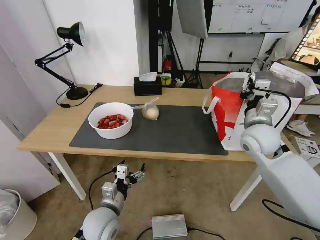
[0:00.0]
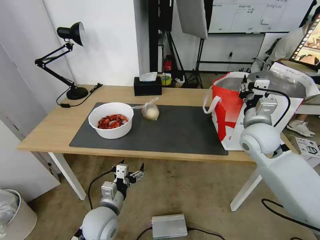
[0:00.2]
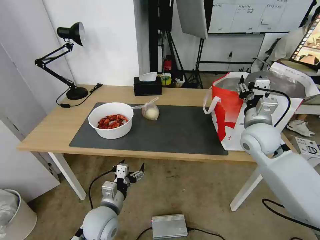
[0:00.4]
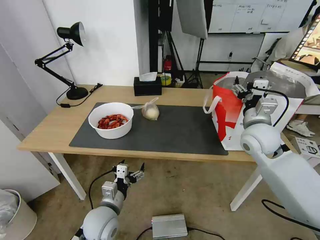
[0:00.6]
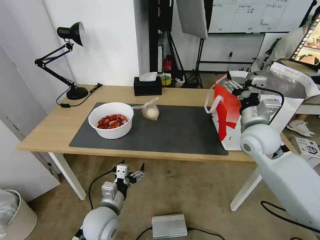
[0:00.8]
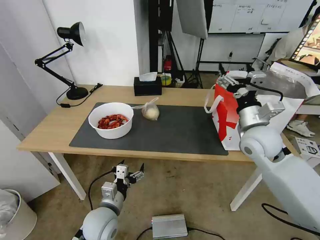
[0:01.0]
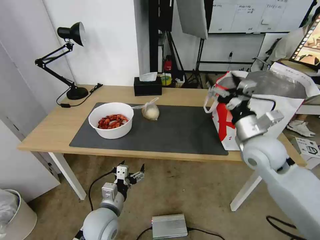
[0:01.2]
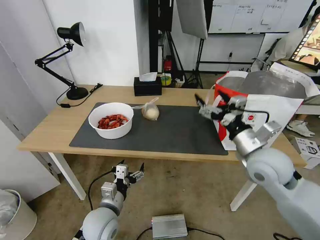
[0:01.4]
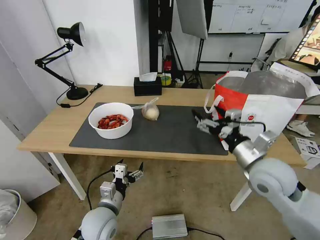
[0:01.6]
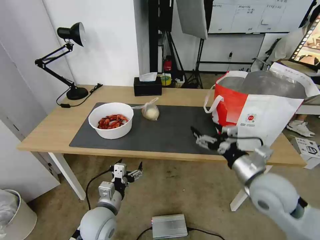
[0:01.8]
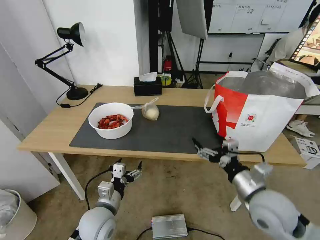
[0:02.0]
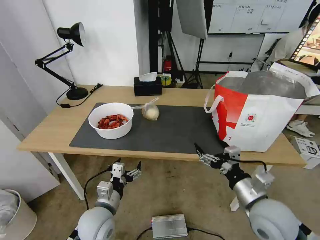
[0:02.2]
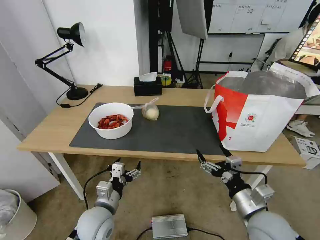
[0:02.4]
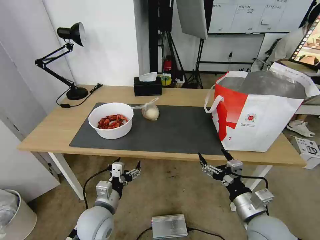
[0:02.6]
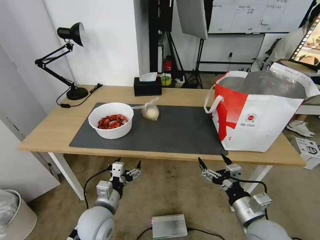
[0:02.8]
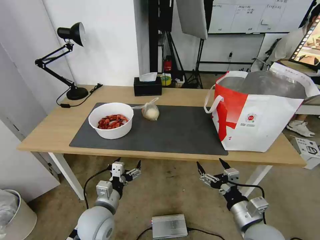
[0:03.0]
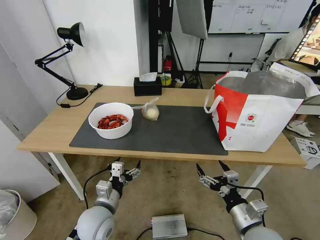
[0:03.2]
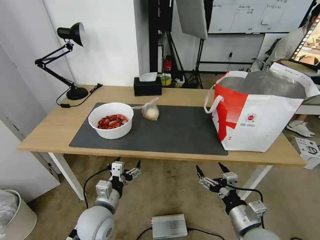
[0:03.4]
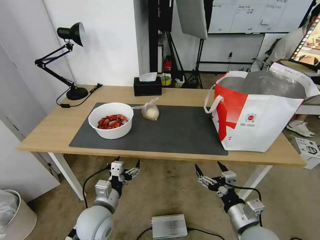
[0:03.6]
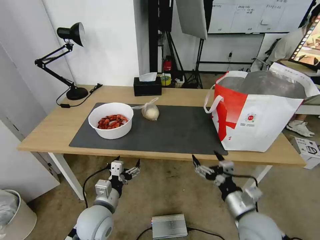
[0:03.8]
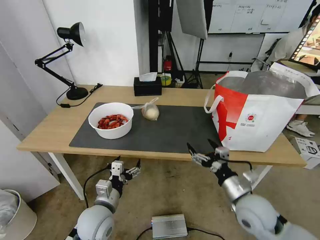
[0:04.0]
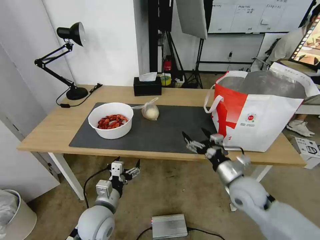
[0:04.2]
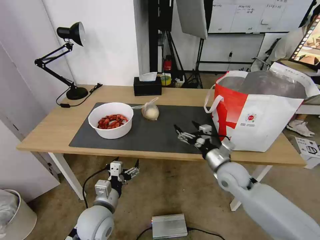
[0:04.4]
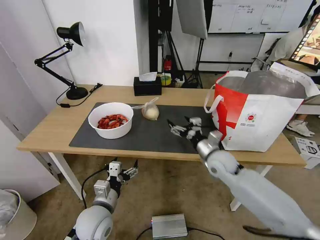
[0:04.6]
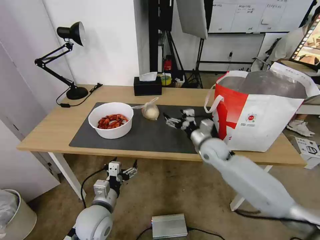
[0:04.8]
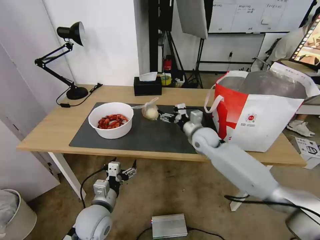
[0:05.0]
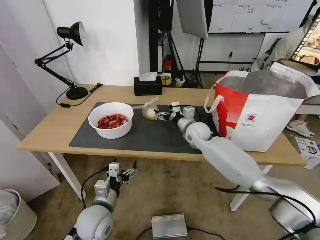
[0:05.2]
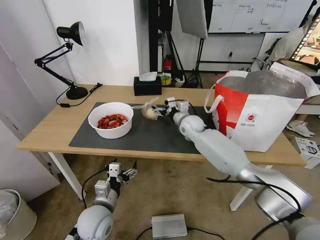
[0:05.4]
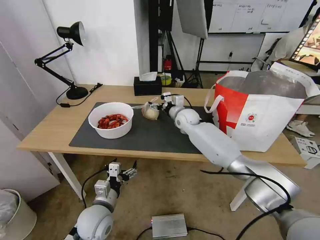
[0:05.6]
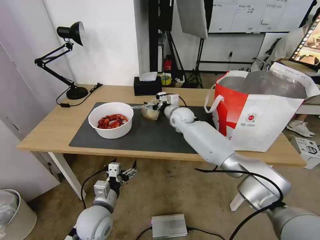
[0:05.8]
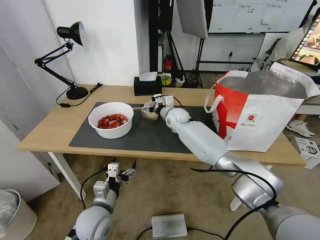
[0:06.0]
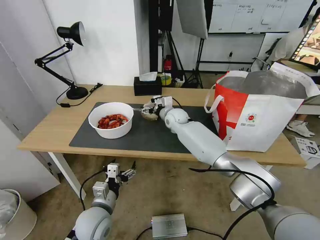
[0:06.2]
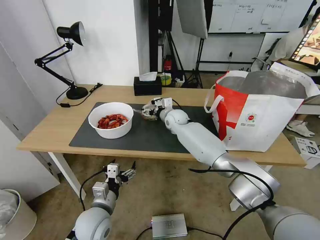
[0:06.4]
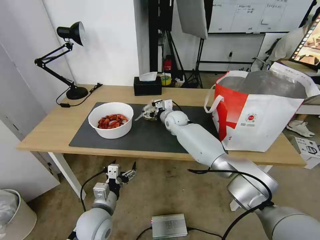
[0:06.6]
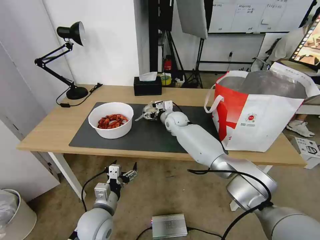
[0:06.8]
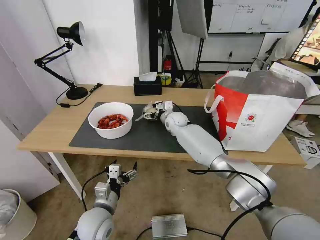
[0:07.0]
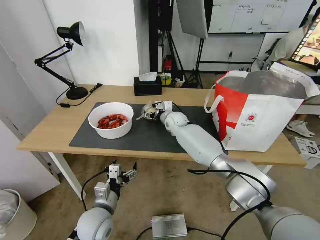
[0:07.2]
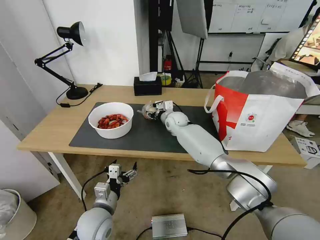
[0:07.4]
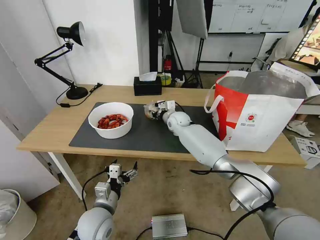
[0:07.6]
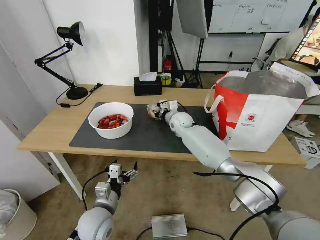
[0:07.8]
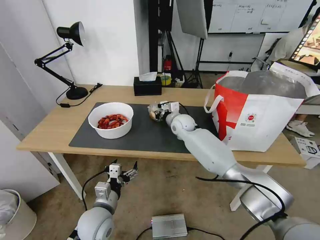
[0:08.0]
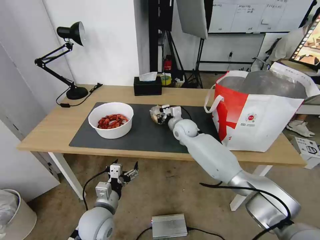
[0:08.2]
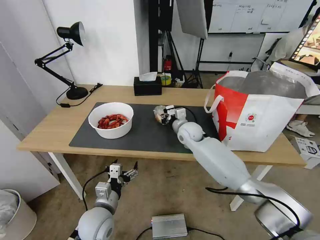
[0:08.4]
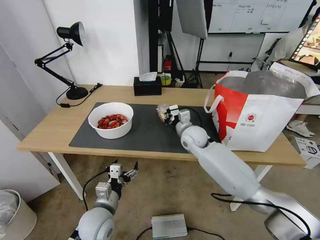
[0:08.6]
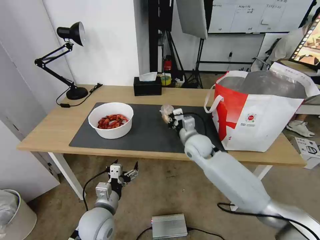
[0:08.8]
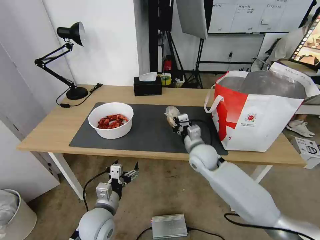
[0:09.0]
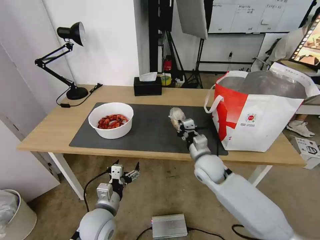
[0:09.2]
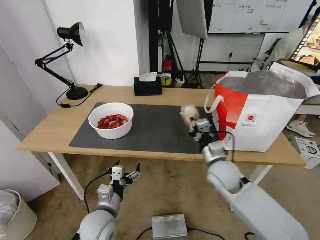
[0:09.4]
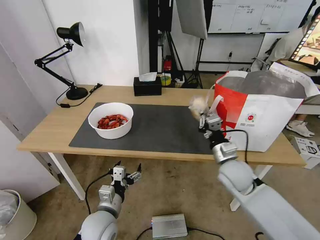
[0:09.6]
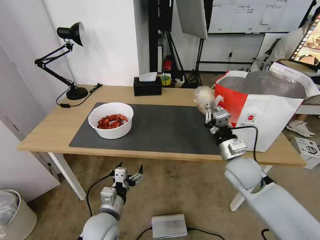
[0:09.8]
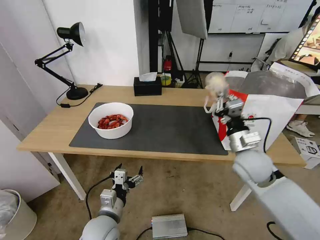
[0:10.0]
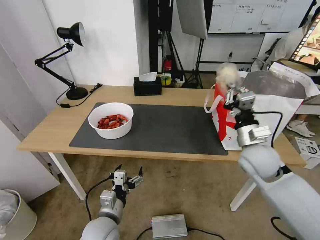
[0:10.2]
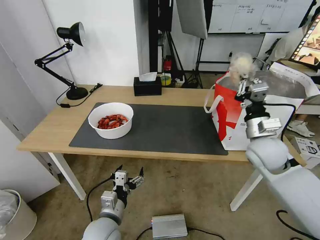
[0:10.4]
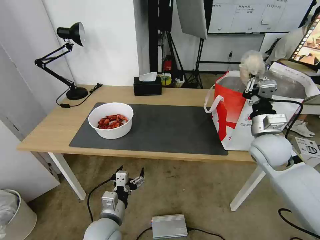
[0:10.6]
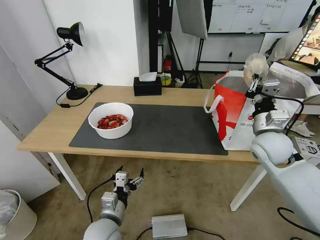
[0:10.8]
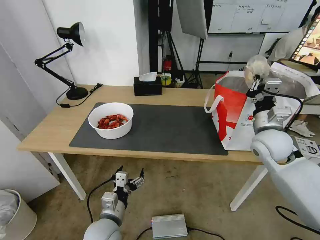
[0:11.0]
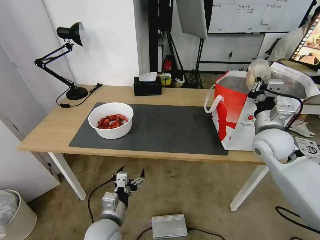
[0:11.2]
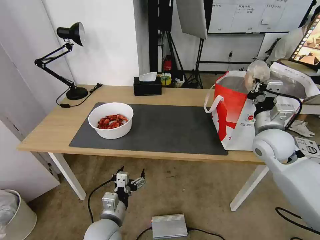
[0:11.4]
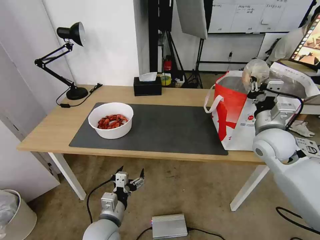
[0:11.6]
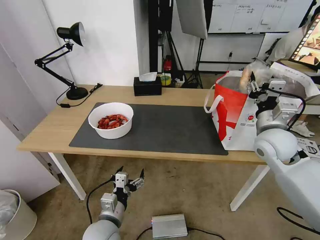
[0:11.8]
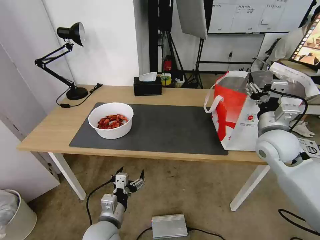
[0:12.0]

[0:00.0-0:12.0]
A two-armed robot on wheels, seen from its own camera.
Task of the whole recording: Pick up the trash from the table and place it into the takeout bag.
0:00.0 to 0:01.6: The right gripper moves backward, about 10 cm, and opens up.
0:01.6 to 0:03.0: The right gripper goes approximately 20 cm downward and backward.
0:03.0 to 0:04.4: The right gripper travels forward by about 20 cm.
0:04.4 to 0:06.0: The right gripper travels forward and to the left by about 30 cm.
0:06.0 to 0:07.6: The right gripper closes its fingers.
0:07.6 to 0:09.0: The right gripper shifts some 20 cm backward.
0:09.0 to 0:10.4: The right gripper moves to the right and upward, some 20 cm.
0:10.4 to 0:12.0: The right gripper opens up.

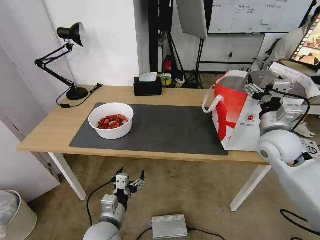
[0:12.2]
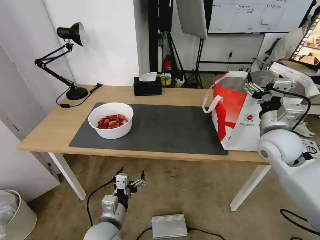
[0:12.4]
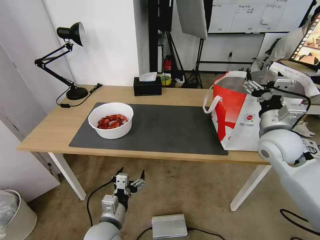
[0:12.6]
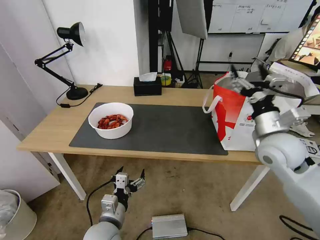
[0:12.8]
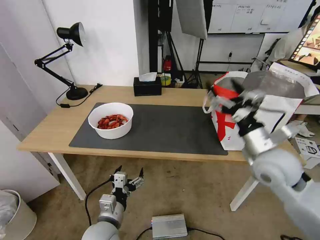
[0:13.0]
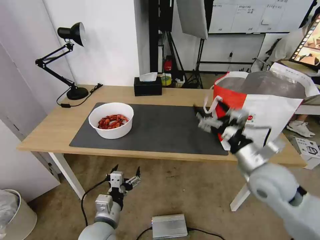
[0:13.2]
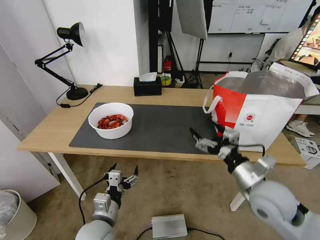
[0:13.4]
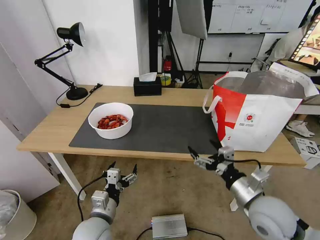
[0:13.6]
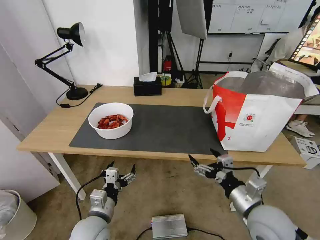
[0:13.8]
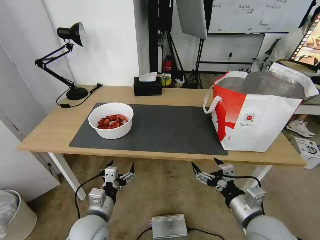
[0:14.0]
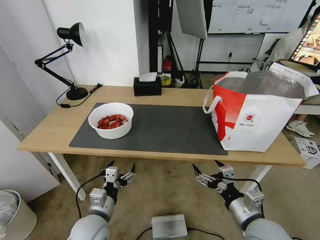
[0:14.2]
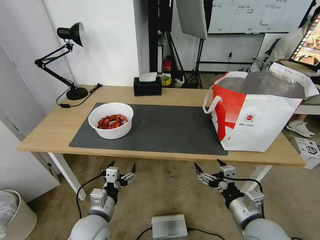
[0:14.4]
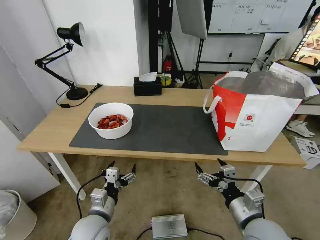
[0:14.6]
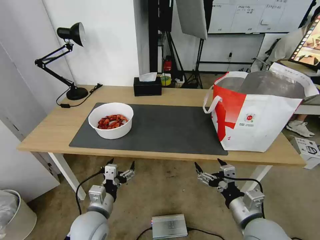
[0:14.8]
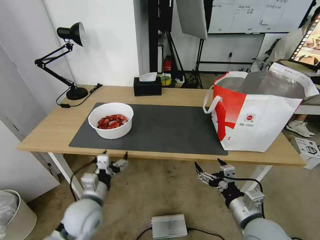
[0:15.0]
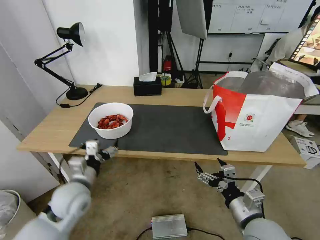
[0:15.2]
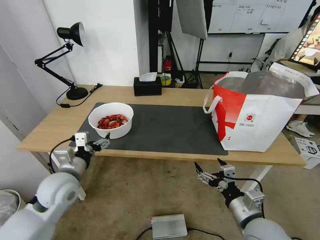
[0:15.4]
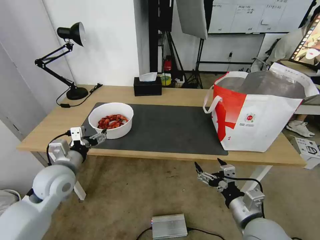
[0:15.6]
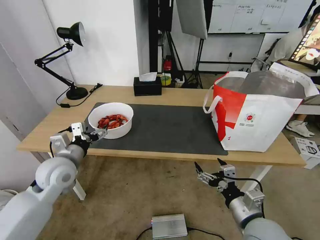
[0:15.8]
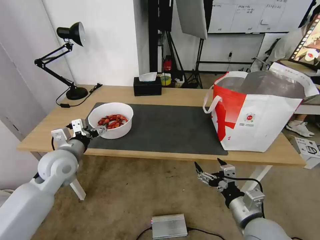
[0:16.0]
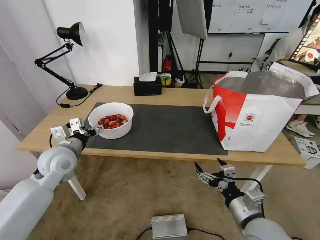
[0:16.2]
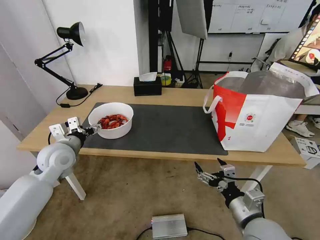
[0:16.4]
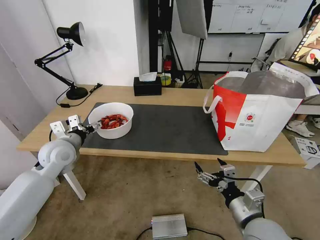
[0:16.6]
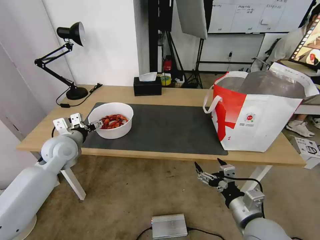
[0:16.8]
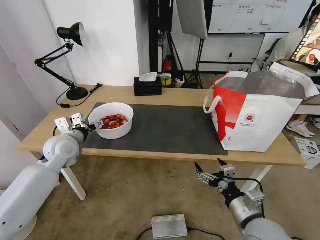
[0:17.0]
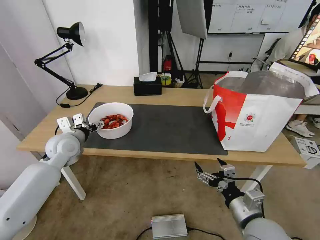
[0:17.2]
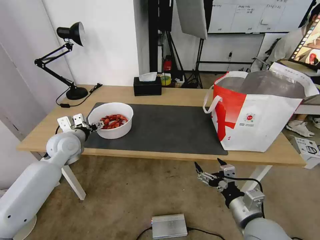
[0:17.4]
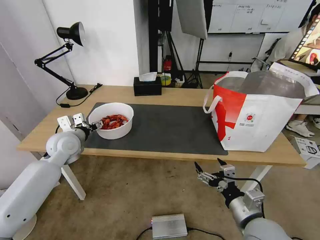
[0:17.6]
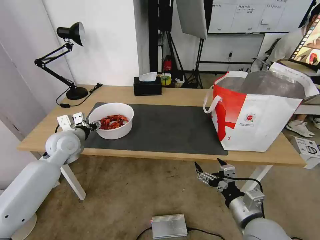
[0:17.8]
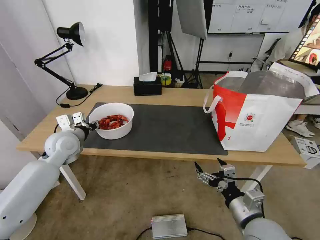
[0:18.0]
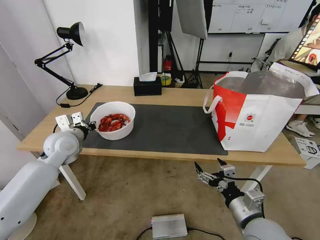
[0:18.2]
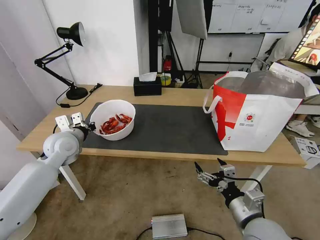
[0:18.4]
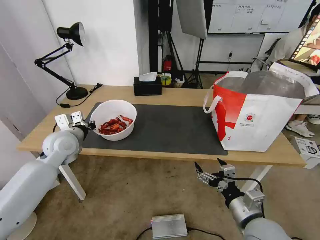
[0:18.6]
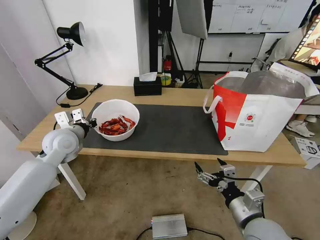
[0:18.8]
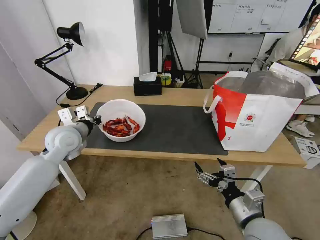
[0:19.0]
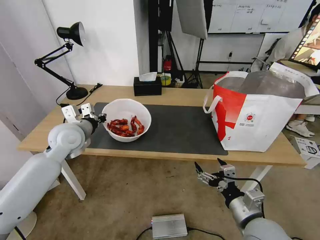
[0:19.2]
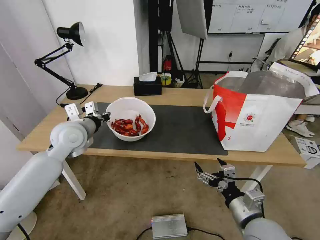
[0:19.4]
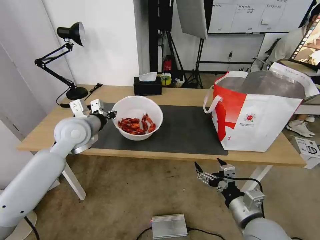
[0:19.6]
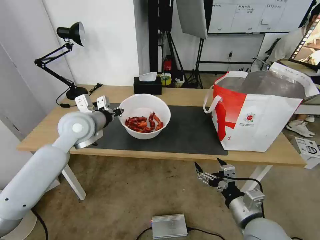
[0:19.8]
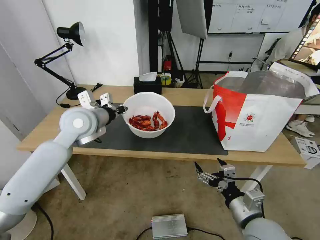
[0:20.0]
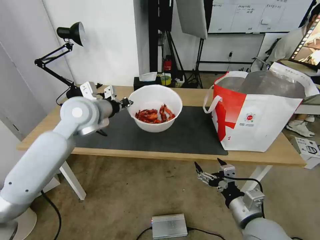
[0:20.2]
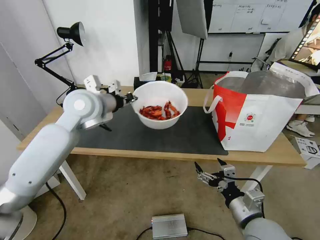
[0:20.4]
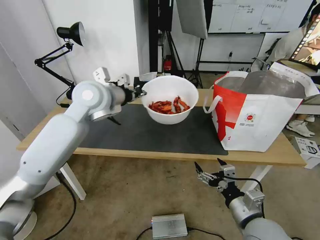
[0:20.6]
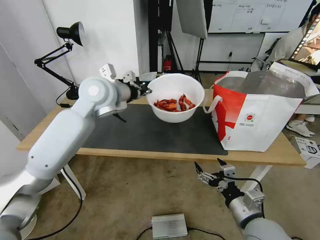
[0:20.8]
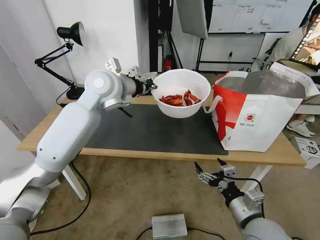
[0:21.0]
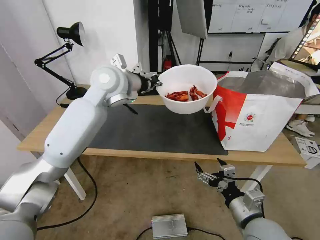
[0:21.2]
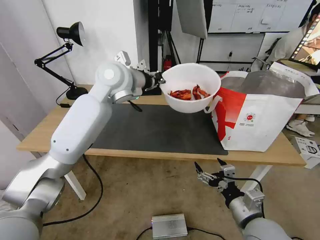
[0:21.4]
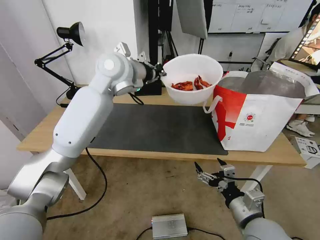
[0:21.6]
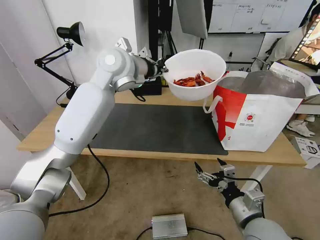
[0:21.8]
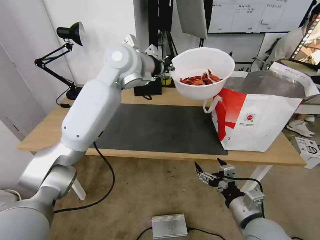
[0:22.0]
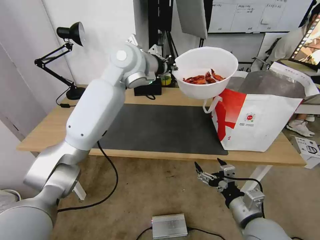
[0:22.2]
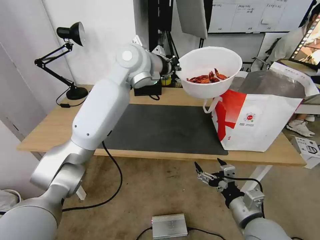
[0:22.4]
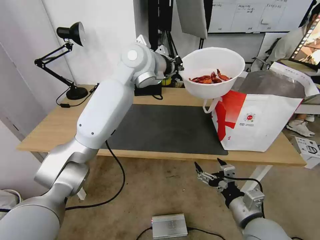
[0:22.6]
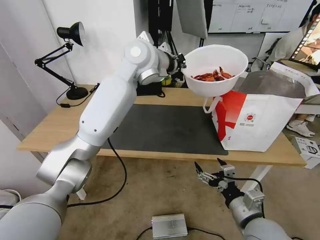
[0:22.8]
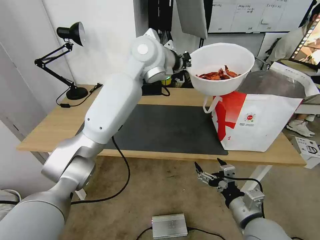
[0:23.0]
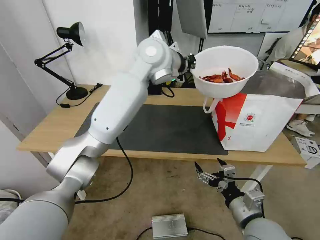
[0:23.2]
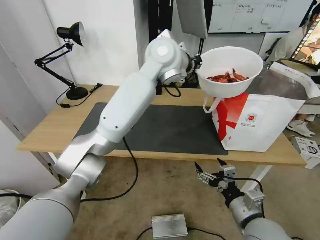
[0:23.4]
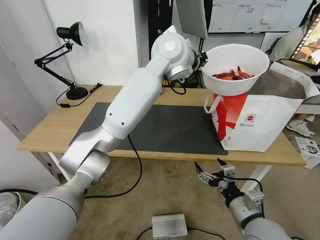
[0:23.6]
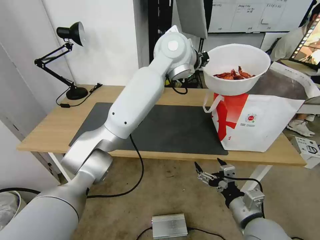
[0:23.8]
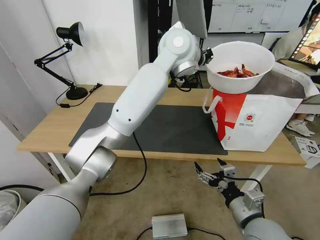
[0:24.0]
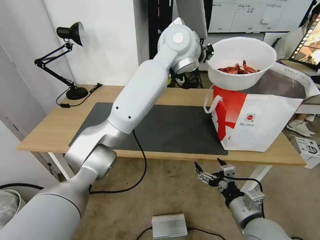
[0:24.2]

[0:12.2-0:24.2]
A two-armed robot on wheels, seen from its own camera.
Task of the whole recording: Pick up the trash from the table and place it into the takeout bag.
0:12.2 to 0:13.8: The right gripper travels backward and downward by about 20 cm.
0:13.8 to 0:15.2: The left gripper is displaced forward, upward and to the left by roughly 10 cm.
0:15.2 to 0:16.6: The left gripper heads forward, upward and to the left, covering roughly 15 cm.
0:16.6 to 0:18.2: The left gripper closes.
0:18.2 to 0:19.8: The left gripper goes about 10 cm upward and to the right.
0:19.8 to 0:21.2: The left gripper is displaced upward, to the right and forward by approximately 15 cm.
0:21.2 to 0:22.6: The left gripper goes about 5 cm to the right.
0:22.6 to 0:24.2: The left gripper heads to the right, covering some 10 cm.
